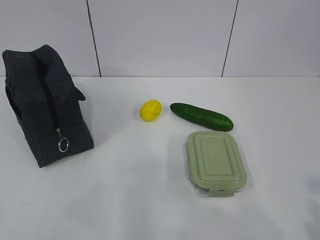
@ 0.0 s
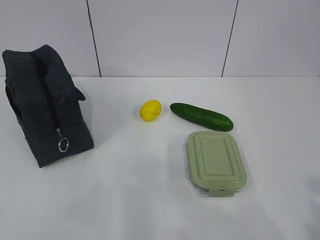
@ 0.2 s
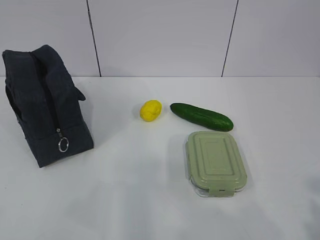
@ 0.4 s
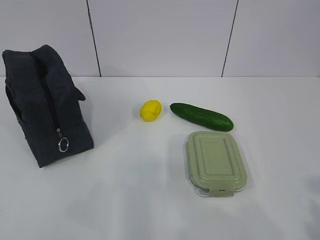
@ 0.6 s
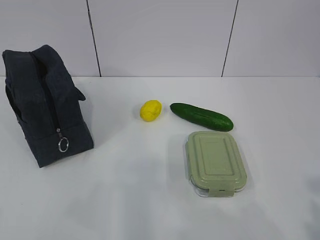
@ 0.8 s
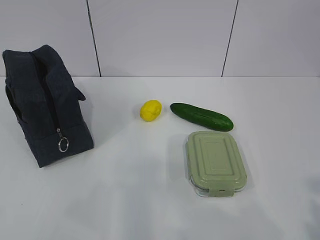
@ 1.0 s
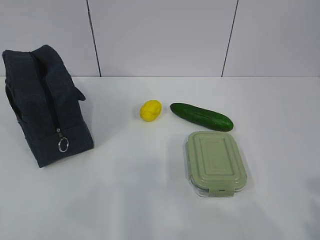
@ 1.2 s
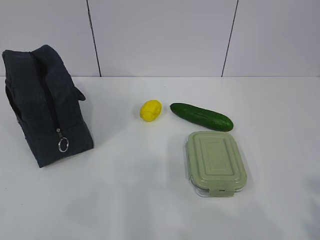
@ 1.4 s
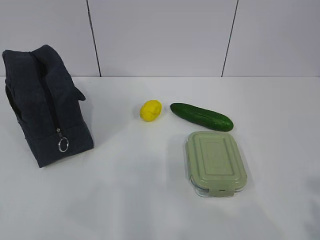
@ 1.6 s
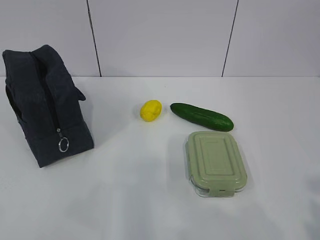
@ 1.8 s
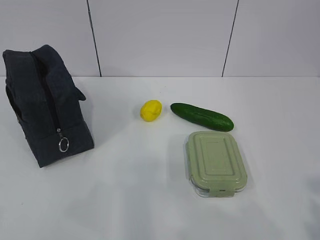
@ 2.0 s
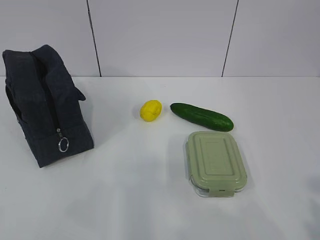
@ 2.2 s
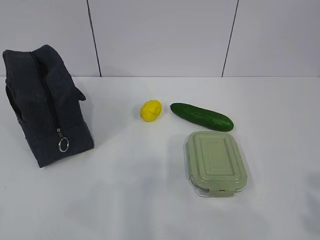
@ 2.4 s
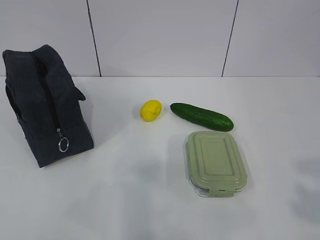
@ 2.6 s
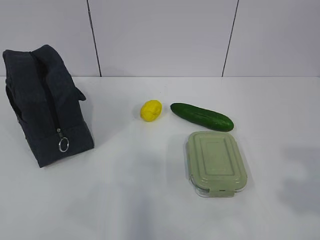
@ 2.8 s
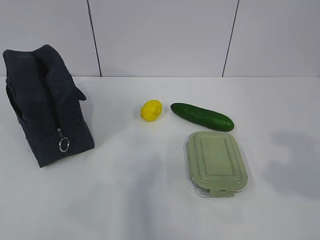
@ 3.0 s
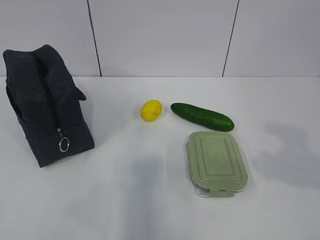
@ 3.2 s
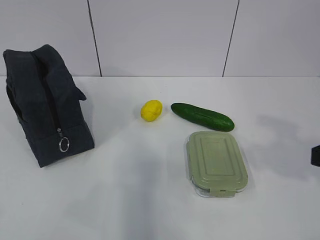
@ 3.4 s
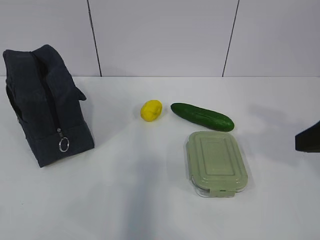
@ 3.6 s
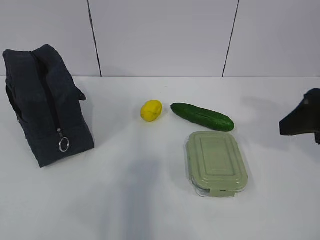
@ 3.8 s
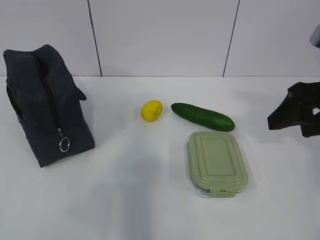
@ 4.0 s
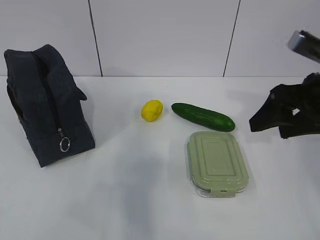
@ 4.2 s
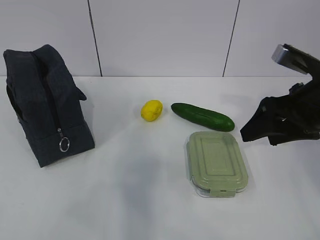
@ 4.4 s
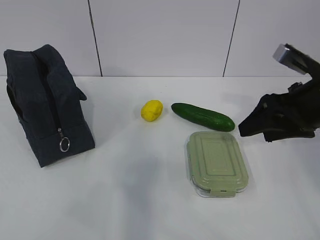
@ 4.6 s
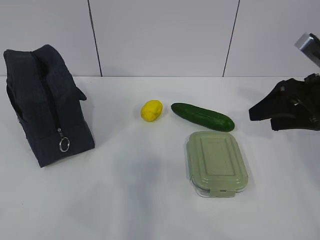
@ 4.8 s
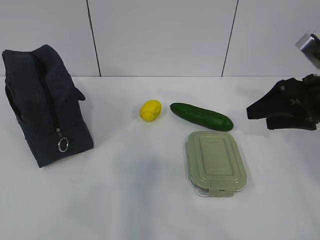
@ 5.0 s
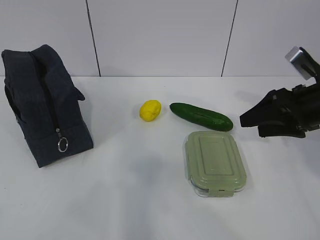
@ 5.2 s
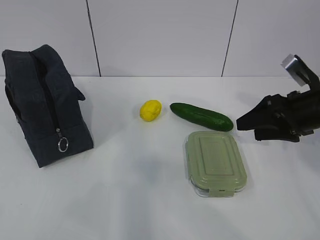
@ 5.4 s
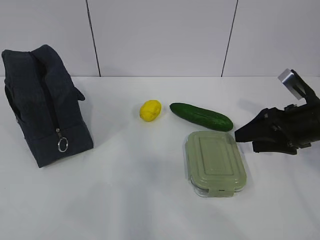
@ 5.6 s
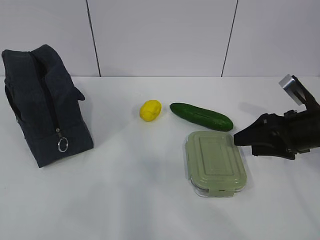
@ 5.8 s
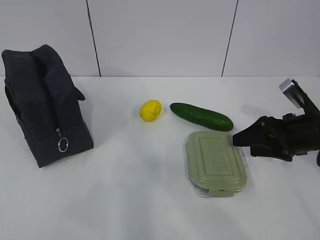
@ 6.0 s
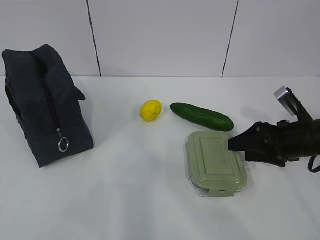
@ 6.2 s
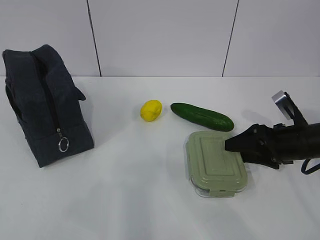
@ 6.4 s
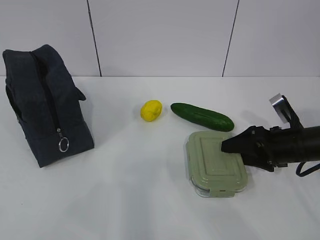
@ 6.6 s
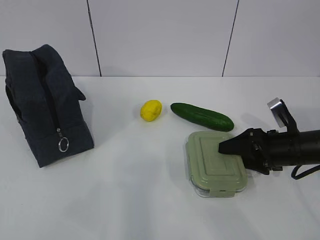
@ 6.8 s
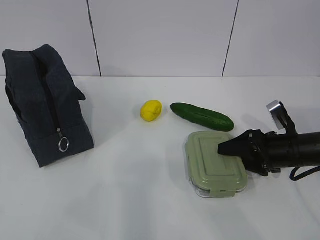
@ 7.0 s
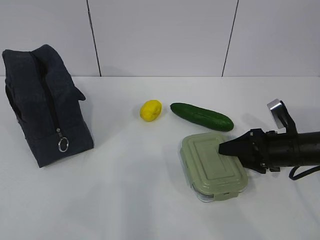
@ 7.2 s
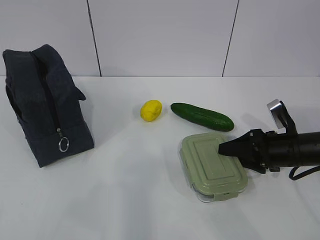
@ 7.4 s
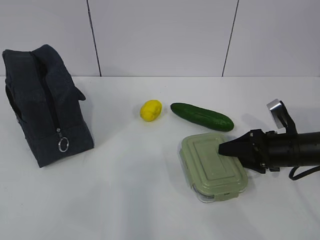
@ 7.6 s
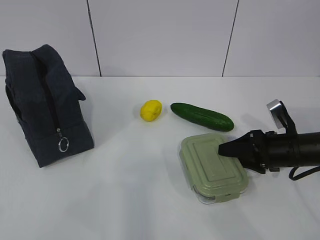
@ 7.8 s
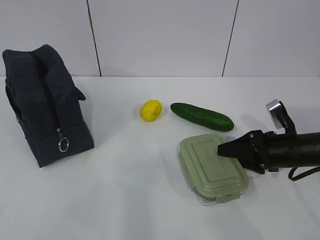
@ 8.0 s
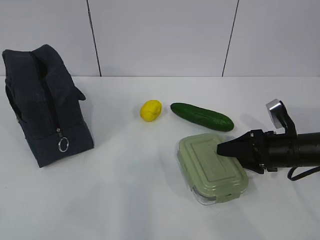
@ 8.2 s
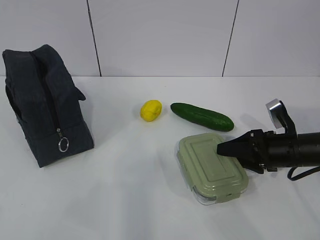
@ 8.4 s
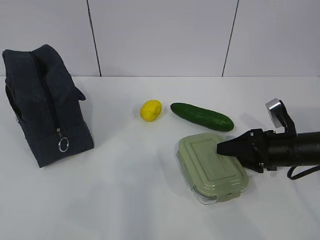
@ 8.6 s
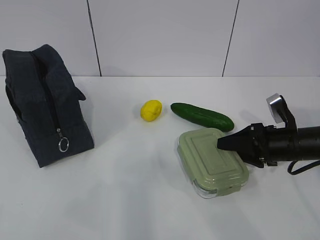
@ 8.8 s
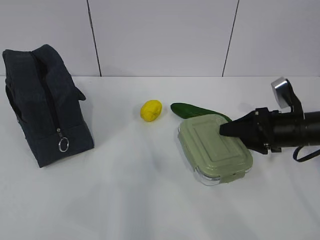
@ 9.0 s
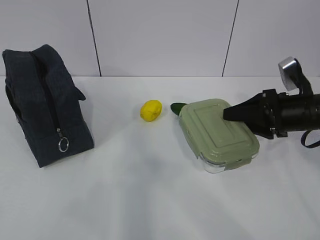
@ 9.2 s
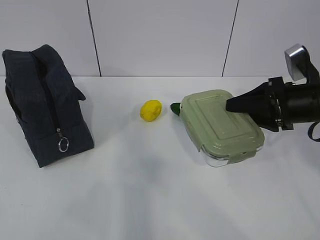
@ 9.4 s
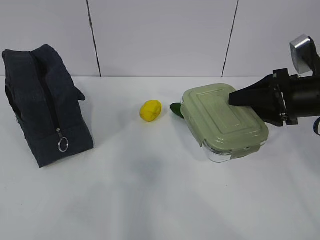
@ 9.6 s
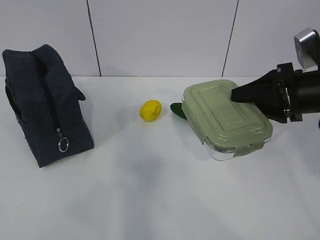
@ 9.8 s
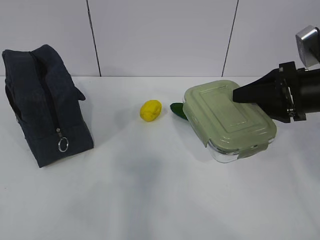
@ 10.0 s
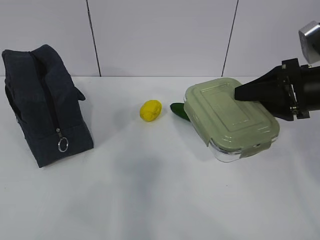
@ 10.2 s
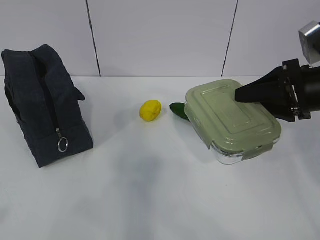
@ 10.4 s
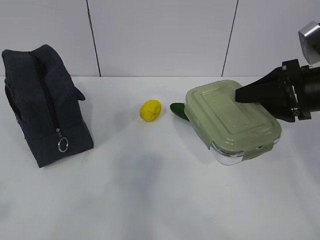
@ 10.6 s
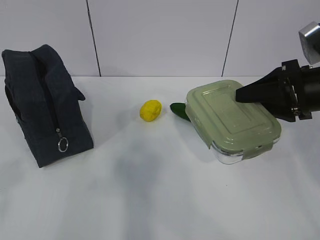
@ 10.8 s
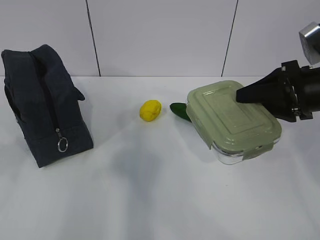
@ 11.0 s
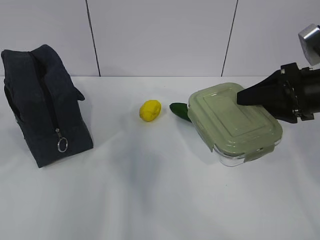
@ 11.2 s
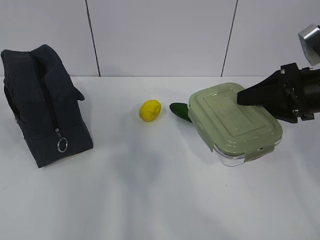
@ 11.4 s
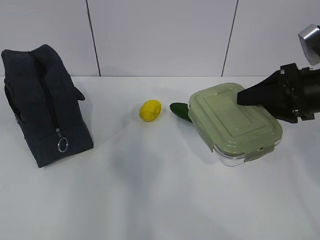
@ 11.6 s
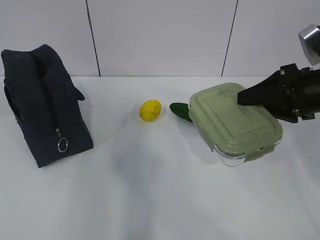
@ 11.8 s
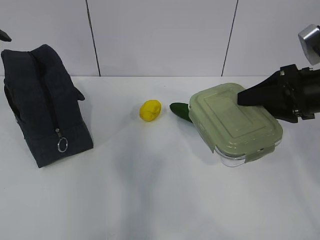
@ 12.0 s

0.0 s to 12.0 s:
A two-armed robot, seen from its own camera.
Step, 0.0 to 5.8 s: Grab the lunch box with your right hand.
3.0 to 4.4 s: The right gripper moves forward, about 20 cm.
4.4 to 6.0 s: The right gripper goes roughly 10 cm downward.
6.0 to 7.6 s: The right gripper shifts roughly 5 cm downward.
7.6 to 9.0 s: The grippers make only small movements.
9.0 to 10.4 s: The right gripper shifts roughly 10 cm upward.
10.4 to 12.0 s: The left gripper moves forward, roughly 30 cm, and opens its fingers.

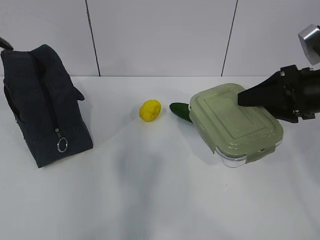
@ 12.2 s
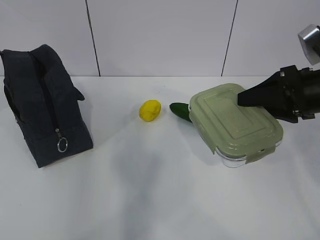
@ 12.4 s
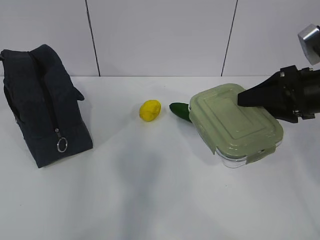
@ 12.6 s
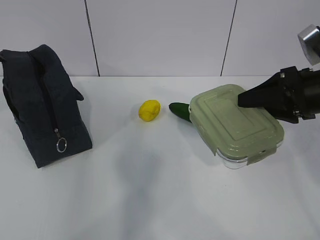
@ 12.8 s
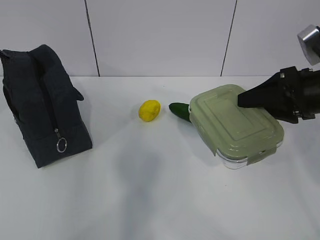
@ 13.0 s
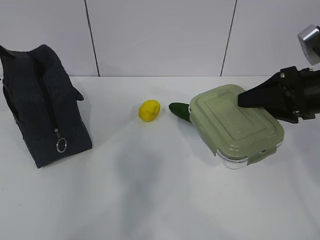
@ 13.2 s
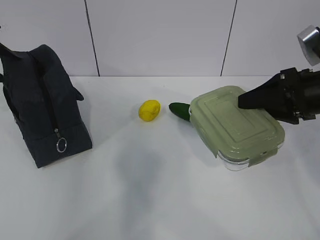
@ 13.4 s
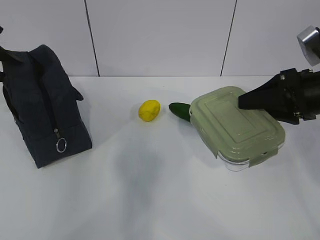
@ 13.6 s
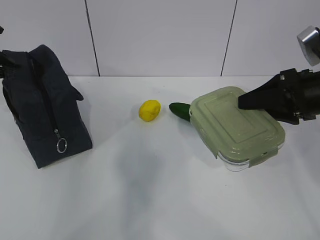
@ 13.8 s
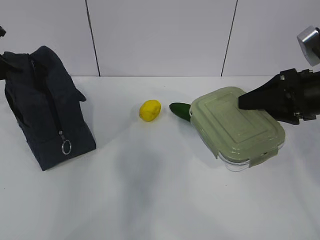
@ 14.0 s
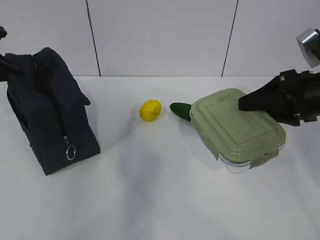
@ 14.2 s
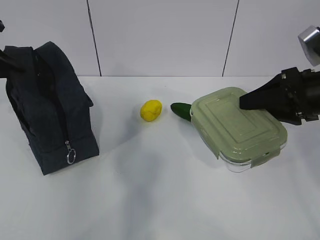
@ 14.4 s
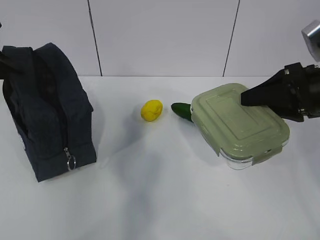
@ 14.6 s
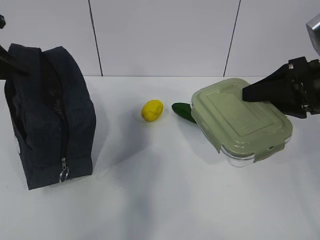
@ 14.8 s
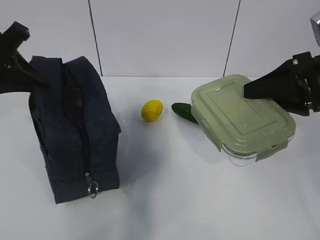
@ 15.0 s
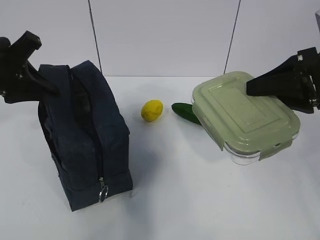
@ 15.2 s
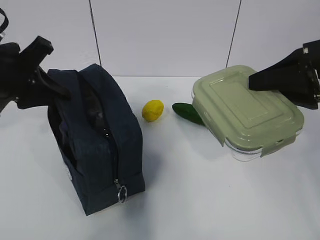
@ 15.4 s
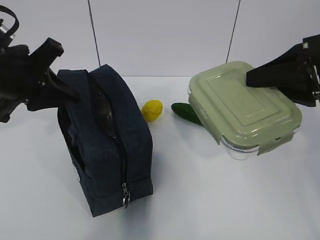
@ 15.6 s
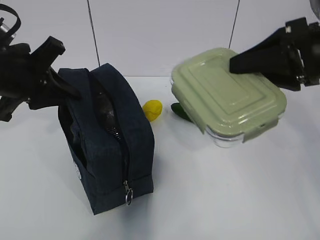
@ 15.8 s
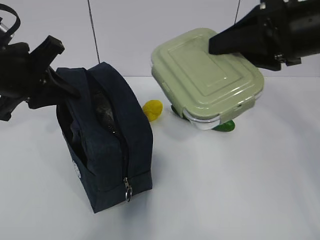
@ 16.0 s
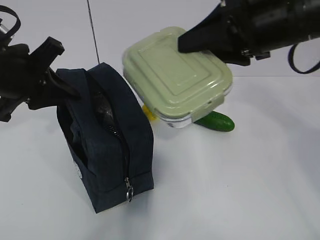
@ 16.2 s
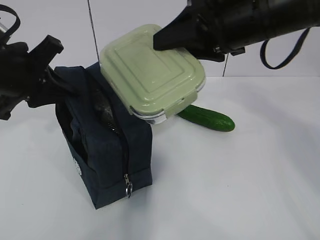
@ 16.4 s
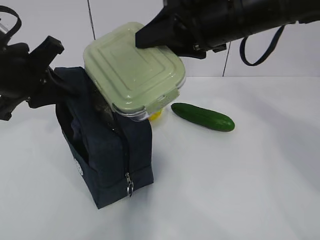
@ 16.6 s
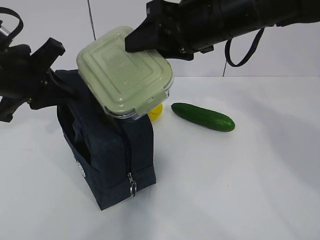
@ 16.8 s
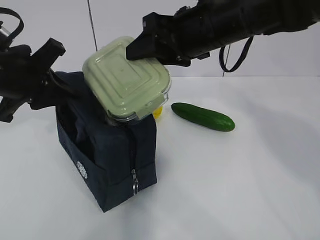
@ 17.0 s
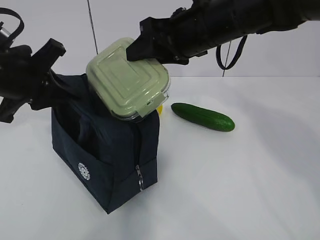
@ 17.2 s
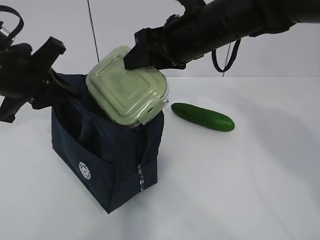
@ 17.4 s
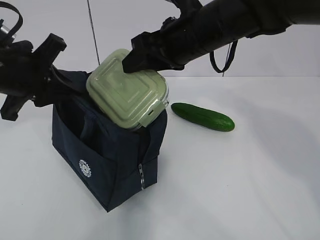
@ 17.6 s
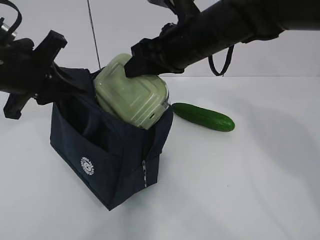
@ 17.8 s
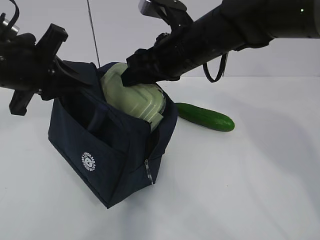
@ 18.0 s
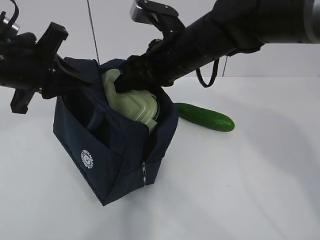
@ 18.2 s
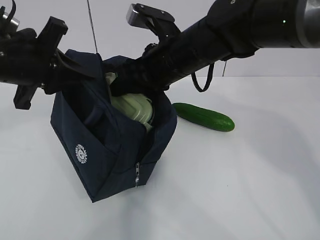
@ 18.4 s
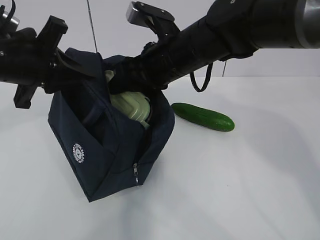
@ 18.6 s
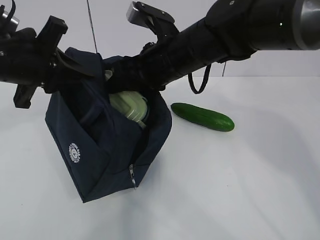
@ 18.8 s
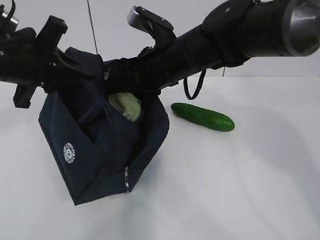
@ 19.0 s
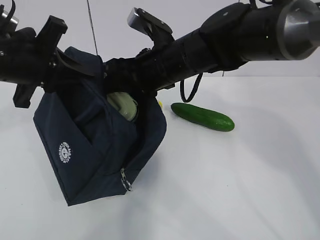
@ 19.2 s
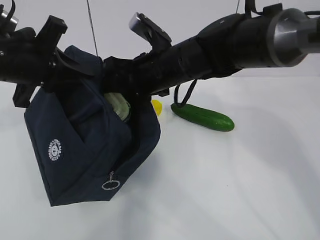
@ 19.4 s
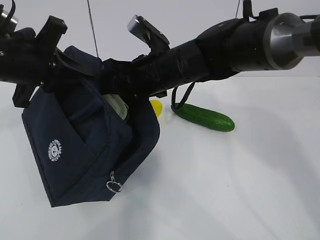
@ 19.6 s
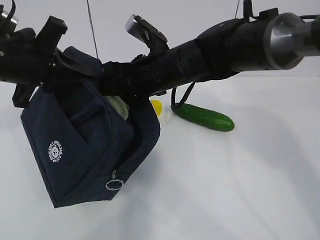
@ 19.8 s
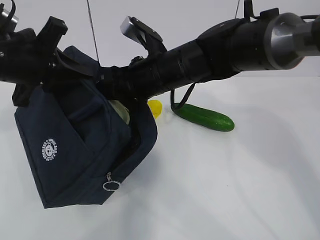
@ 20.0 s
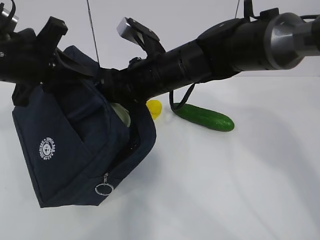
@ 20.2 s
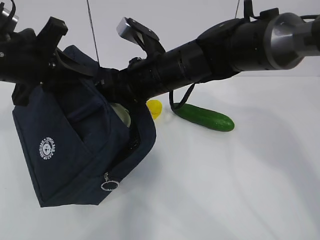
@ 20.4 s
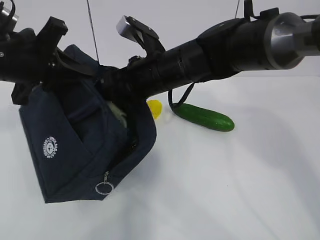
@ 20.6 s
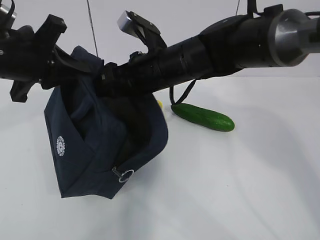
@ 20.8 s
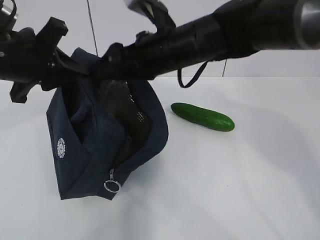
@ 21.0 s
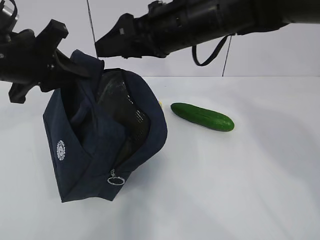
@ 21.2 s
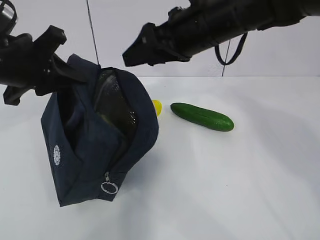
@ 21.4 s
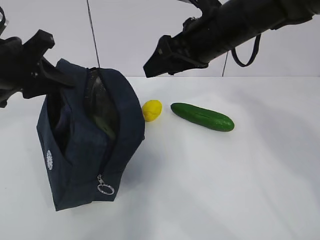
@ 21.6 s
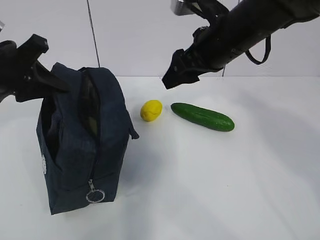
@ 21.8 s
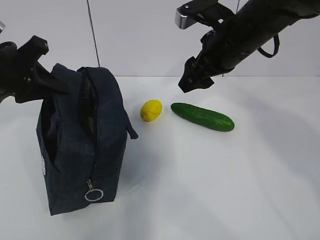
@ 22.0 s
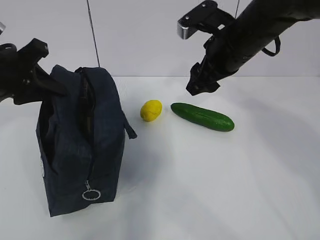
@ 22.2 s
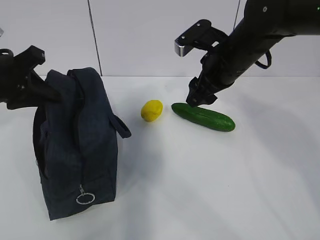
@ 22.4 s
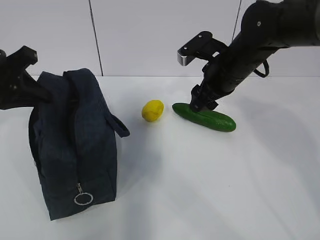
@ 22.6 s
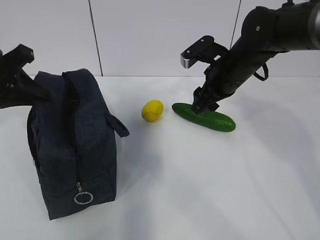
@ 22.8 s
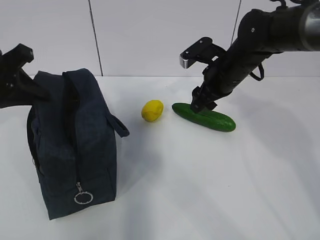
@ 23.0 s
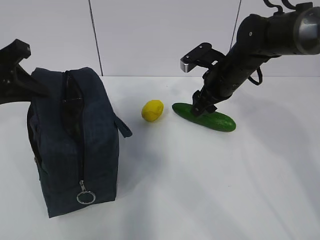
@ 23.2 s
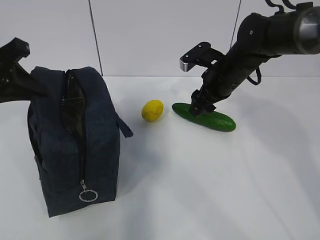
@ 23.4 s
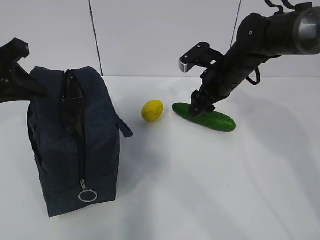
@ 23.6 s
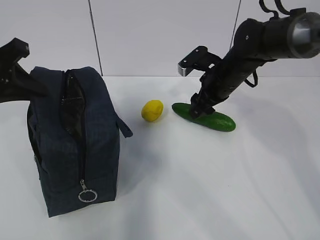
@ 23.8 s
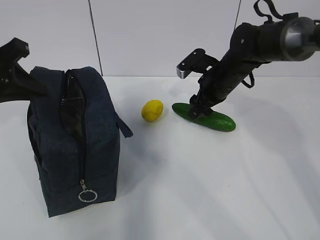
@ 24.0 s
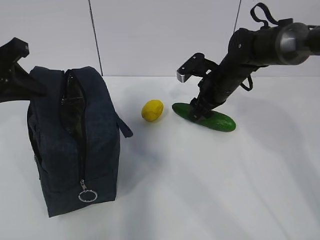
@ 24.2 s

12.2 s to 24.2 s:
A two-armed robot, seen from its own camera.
Step, 14.2 to 17.2 s: Place it into the bag with your right hand.
Step, 17.6 to 20.8 s: Grab the cucumber with your right hand.
12.2 to 13.8 s: The left gripper travels downward by roughly 5 cm, and closes.
13.8 to 15.2 s: The left gripper moves to the right and backward, some 10 cm.
15.2 to 16.6 s: The right gripper goes some 15 cm to the left and upward.
16.6 to 18.2 s: The right gripper heads downward and to the left, covering some 10 cm.
19.8 to 21.2 s: The right gripper heads upward, covering approximately 10 cm.
21.2 to 22.6 s: The right gripper is displaced downward and to the right by some 15 cm; the left gripper heads to the left, covering about 5 cm.
22.6 to 24.2 s: The right gripper goes roughly 10 cm downward and forward.
